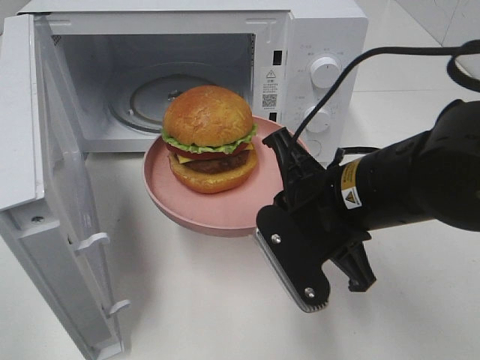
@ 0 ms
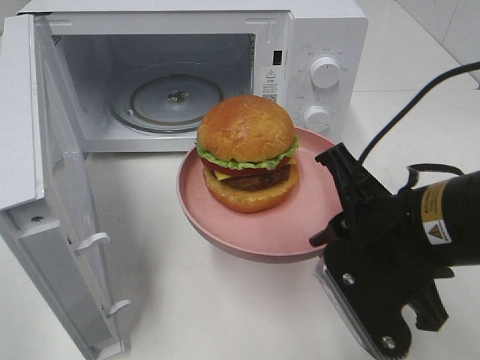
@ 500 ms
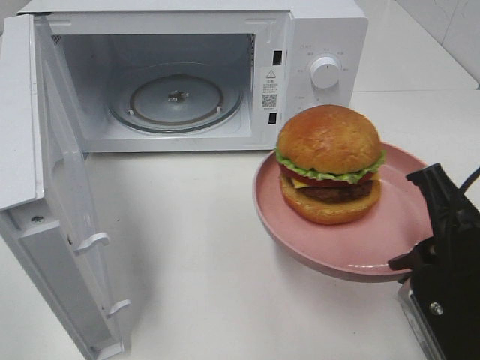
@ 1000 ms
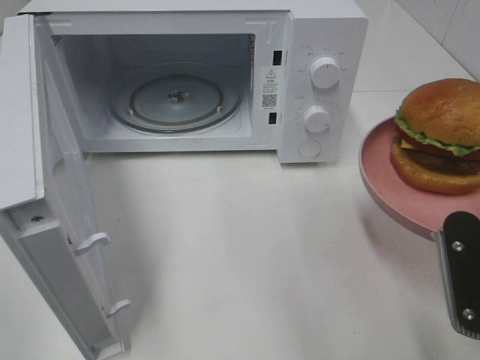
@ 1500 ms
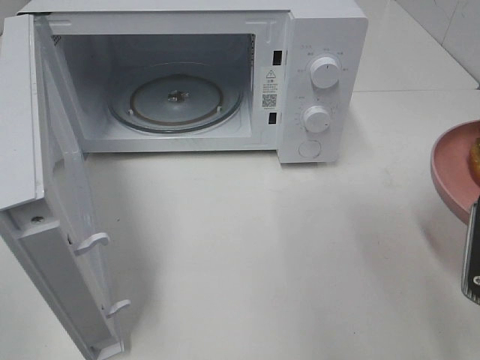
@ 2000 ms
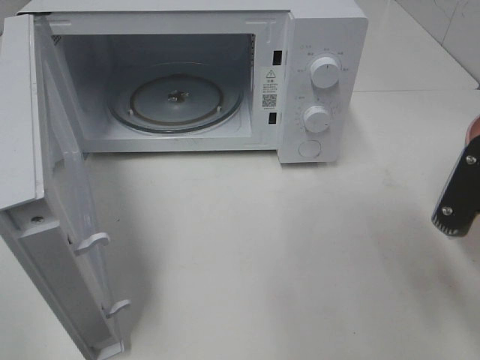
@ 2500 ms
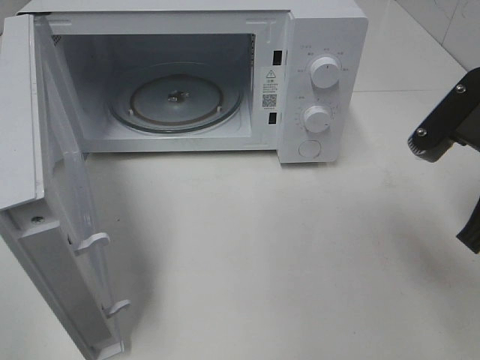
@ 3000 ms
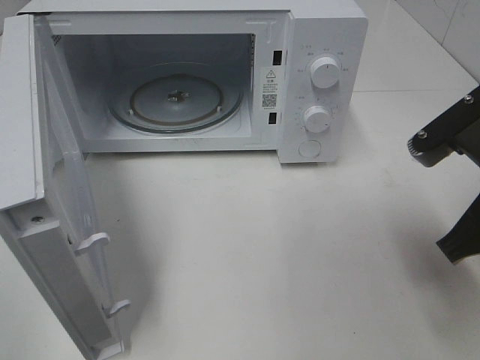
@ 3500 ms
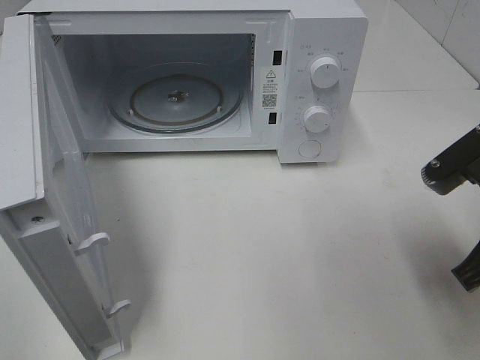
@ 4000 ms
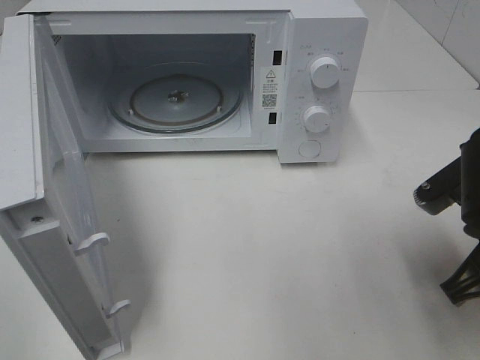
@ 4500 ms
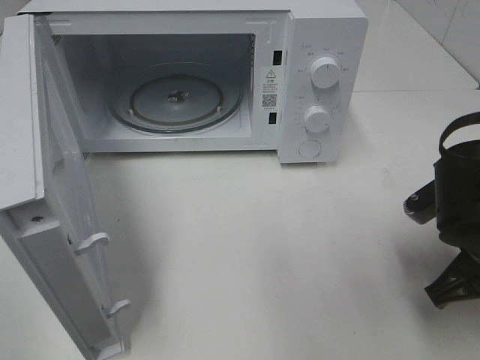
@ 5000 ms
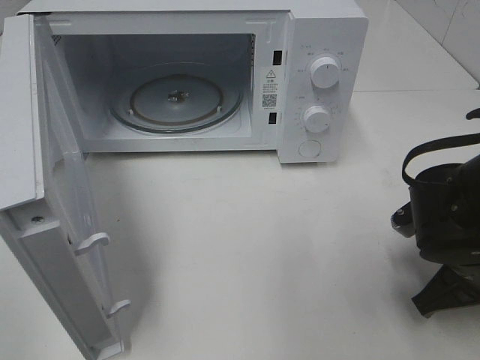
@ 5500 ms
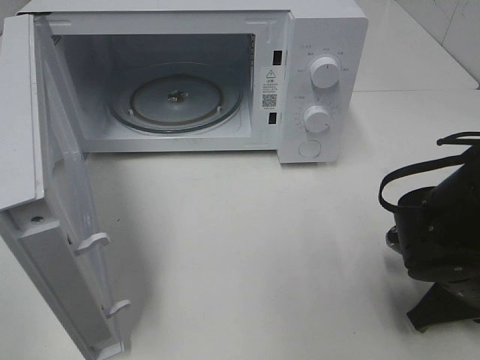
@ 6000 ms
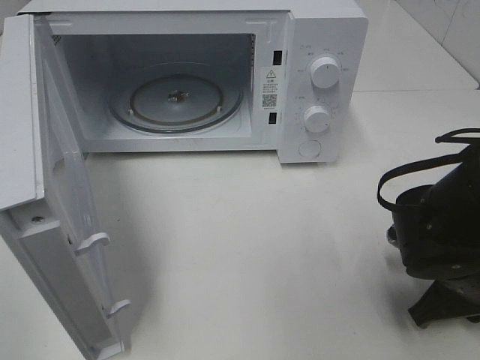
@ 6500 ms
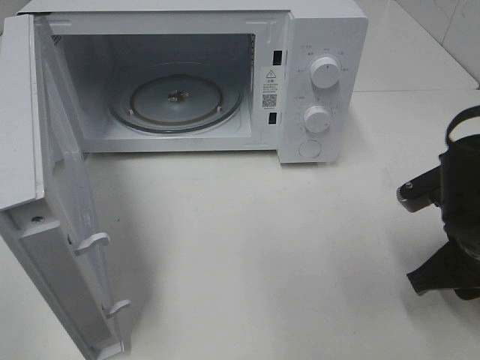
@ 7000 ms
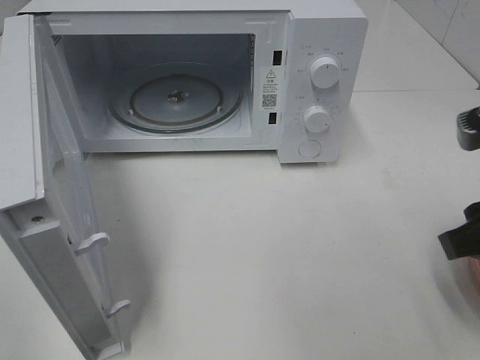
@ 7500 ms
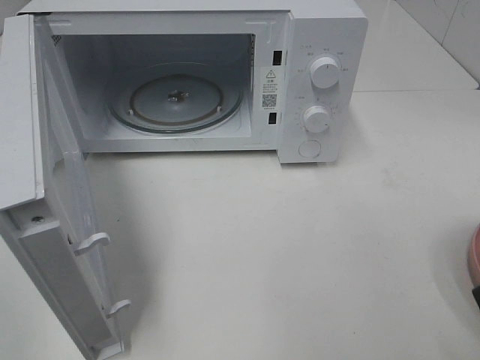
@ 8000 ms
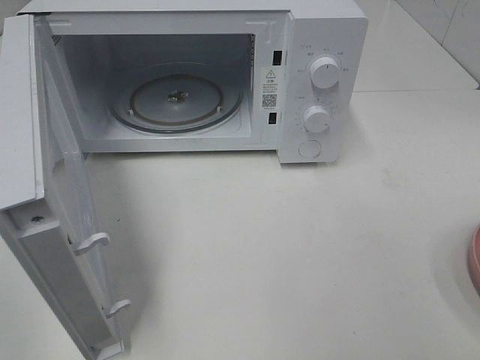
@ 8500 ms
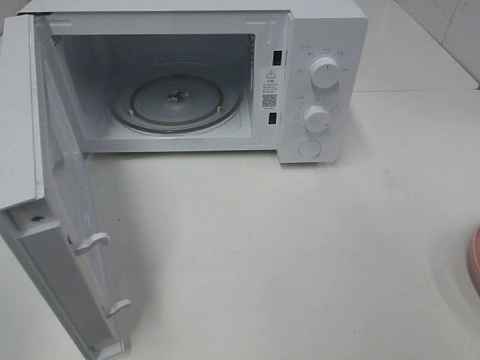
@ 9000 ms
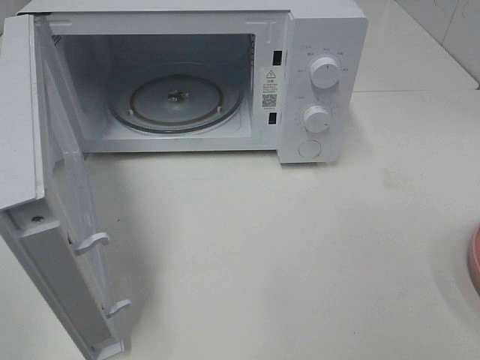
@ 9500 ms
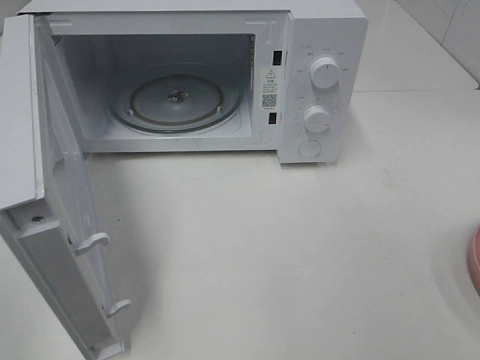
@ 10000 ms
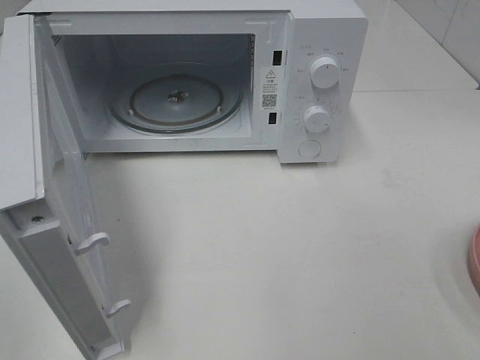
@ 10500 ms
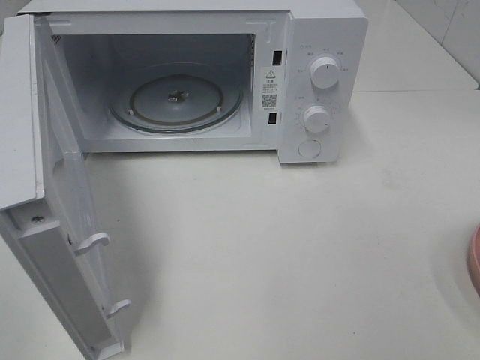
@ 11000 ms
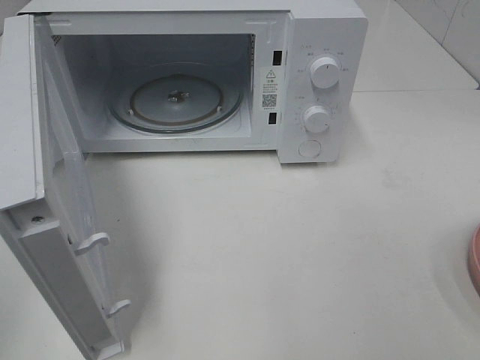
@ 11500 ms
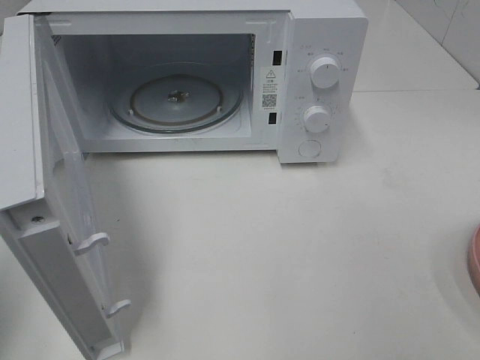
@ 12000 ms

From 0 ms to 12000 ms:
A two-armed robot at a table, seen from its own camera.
Task of the whole recording: Heat the burger.
Step, from 0 ms to 6500 ms: Right hand: place the plate on the table.
From 0 ms to 2000 ms: The right gripper heads to the right and backward, covering about 15 cm.
From 4000 ms to 6000 ms: The right gripper is displaced downward by roughly 10 cm.
From 6000 ms to 8000 ms: The right gripper shifts some 20 cm upward and backward, and opens up.

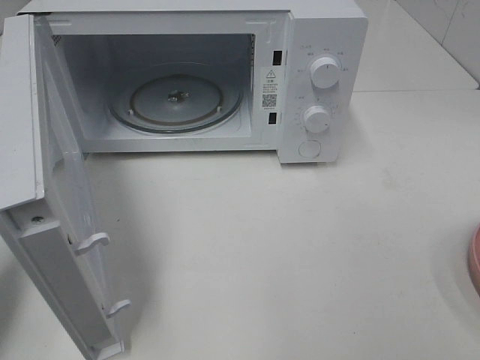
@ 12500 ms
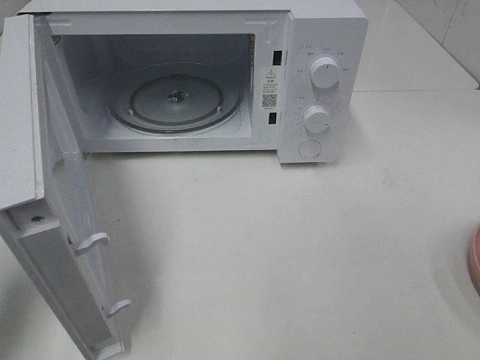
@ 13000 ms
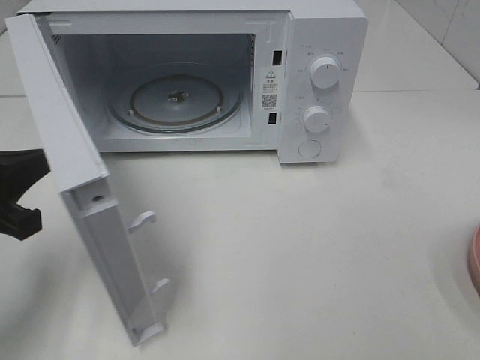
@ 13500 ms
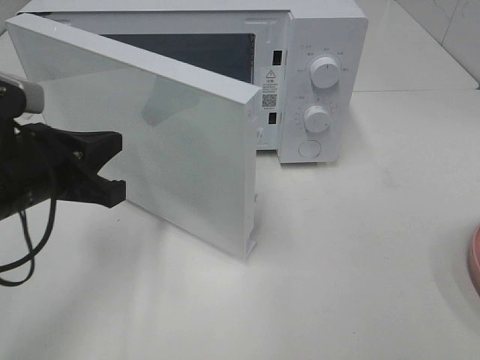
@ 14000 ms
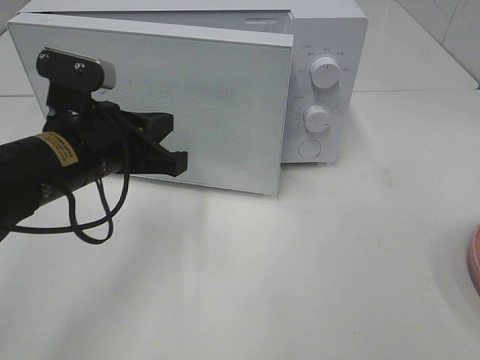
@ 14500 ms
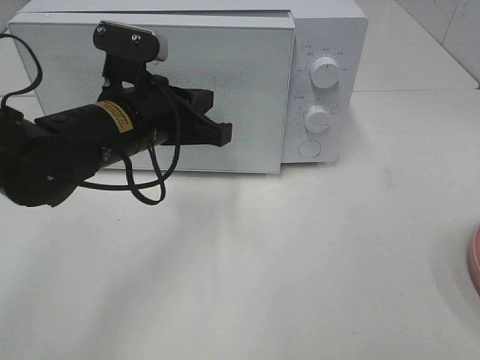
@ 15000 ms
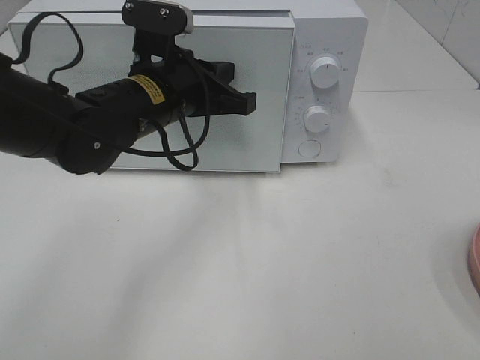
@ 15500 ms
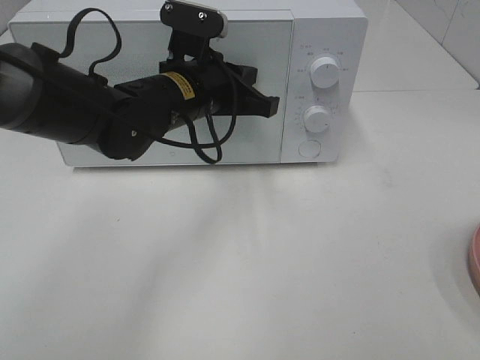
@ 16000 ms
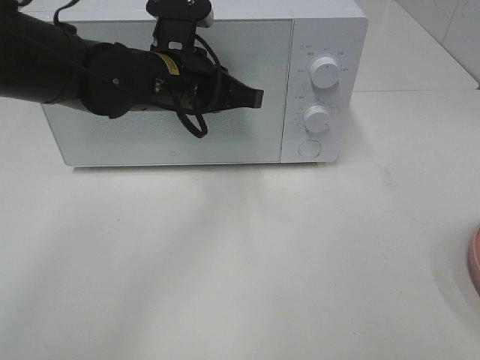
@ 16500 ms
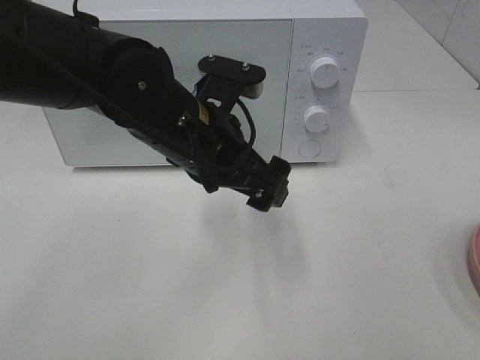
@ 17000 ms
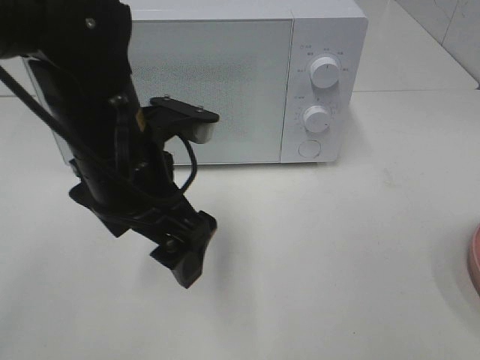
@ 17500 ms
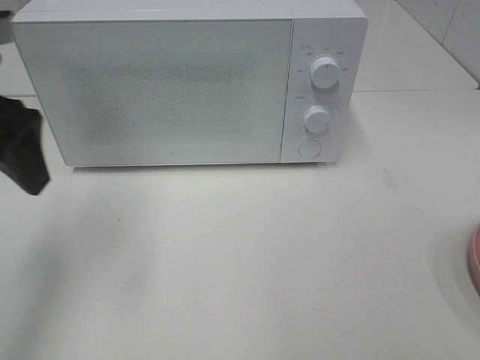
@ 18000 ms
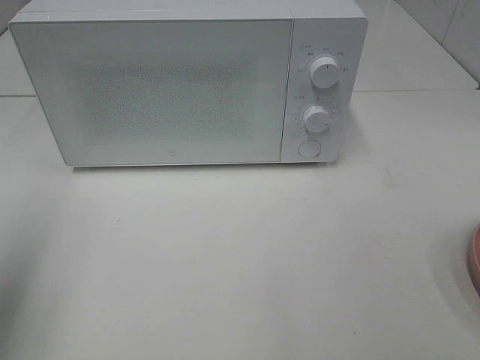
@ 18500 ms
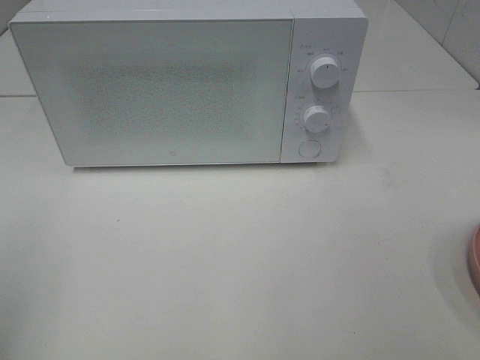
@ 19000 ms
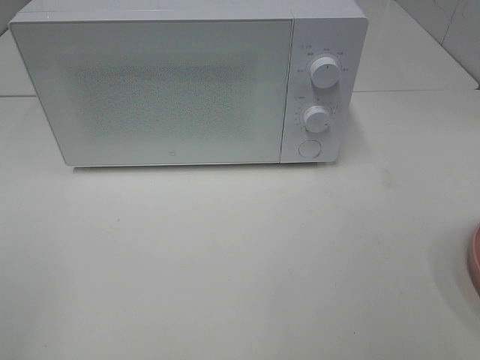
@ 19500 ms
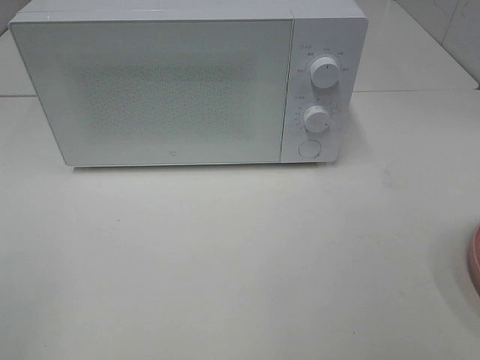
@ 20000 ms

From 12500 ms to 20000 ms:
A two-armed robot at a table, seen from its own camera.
Task of the whole recording: Heat the burger.
Step, from 12500 ms to 16500 ms: Left hand: close the microwave door.
From 12500 ms to 14500 ms: The left gripper shifts roughly 20 cm to the right and forward.
From 14500 ms to 16500 ms: The left gripper is displaced to the right and forward by approximately 10 cm.
From 16500 ms to 18000 ms: The left gripper goes approximately 25 cm to the left, upward and backward, and opens up.
From 18000 ms to 20000 ms: The left gripper travels backward by approximately 25 cm.

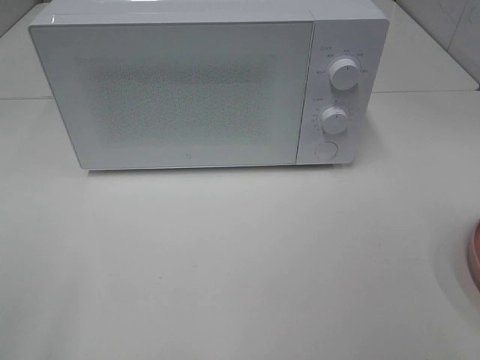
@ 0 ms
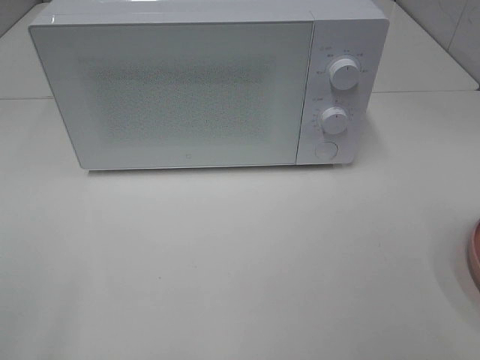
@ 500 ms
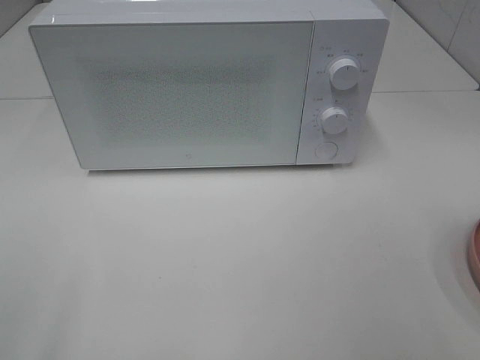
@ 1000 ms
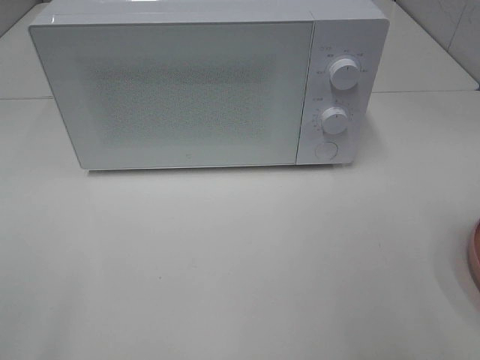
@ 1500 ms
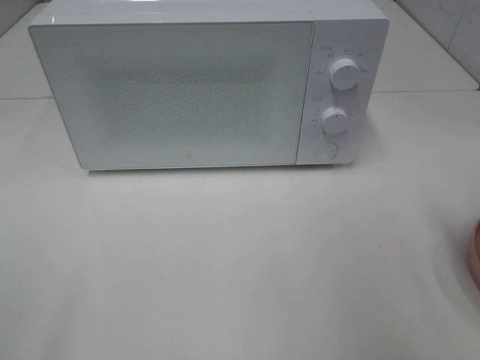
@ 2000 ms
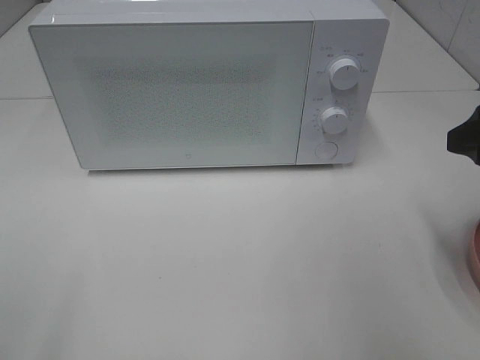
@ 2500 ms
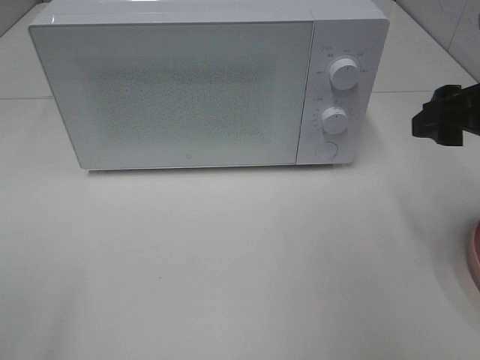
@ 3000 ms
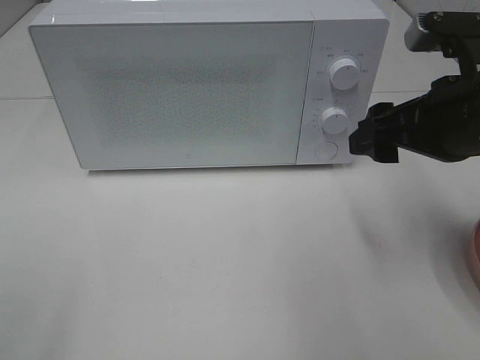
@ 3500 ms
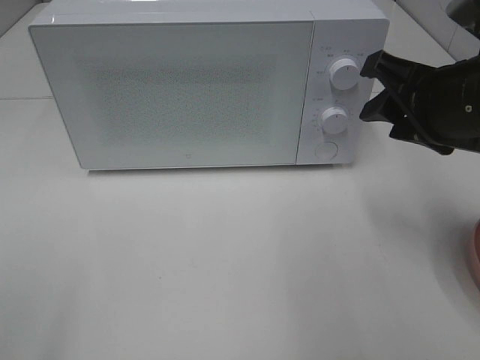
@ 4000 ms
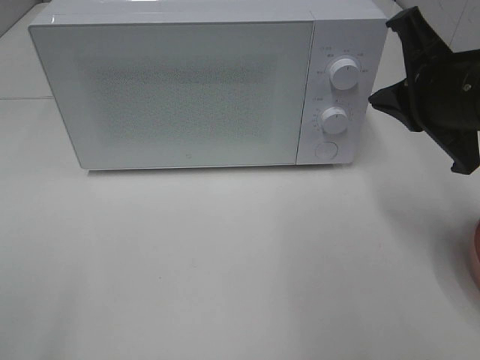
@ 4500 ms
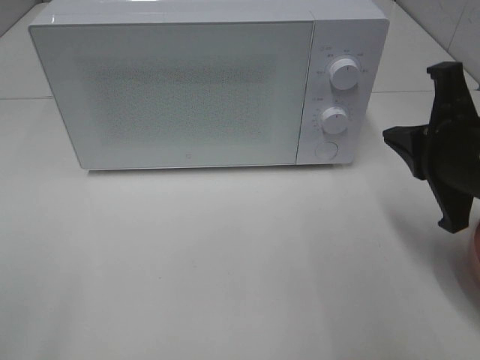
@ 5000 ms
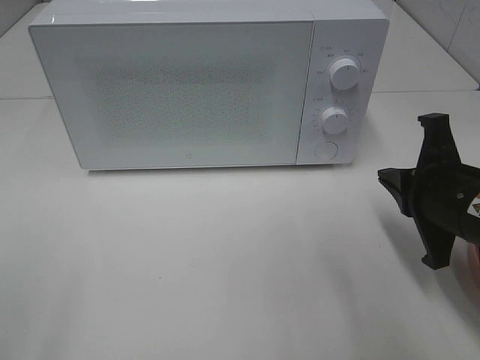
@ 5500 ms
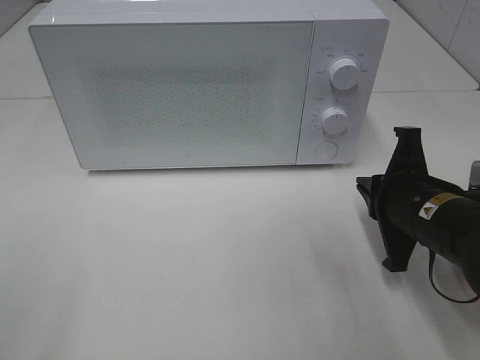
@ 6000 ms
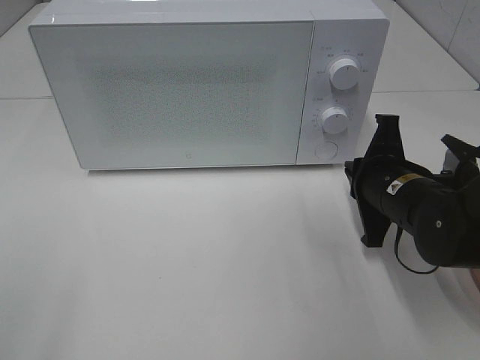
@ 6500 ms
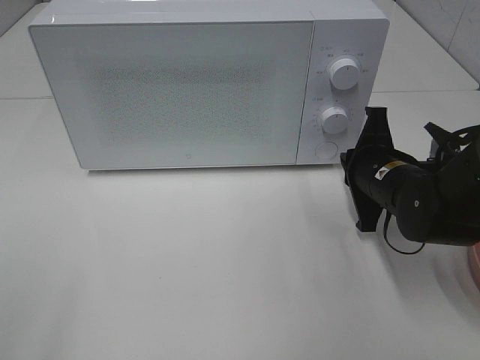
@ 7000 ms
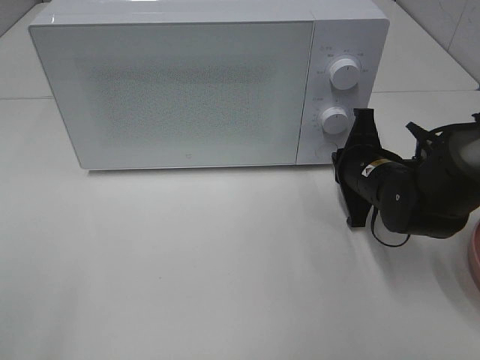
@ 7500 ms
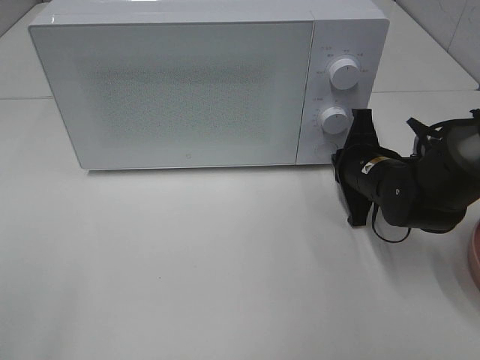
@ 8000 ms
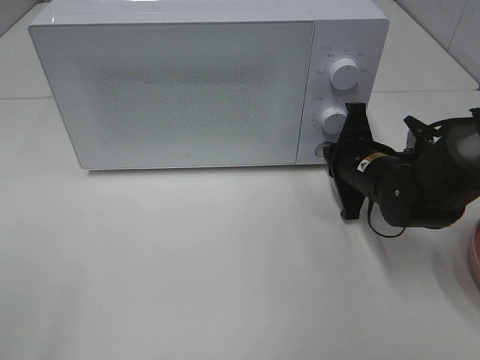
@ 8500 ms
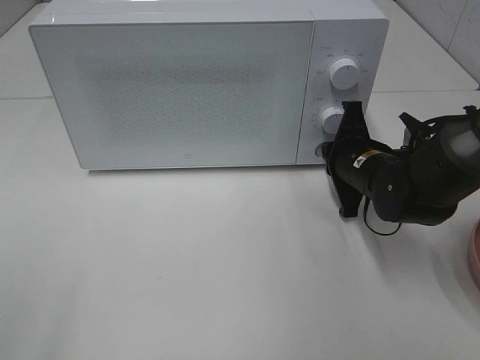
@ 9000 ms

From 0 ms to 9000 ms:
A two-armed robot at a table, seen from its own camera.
Task of the whole recording: Heat the burger.
From 2000 ms to 4500 ms: The right gripper travels forward and to the left by roughly 10 cm, and closes up.
From 4500 ms to 7000 ms: The right gripper moves downward, about 15 cm.
From 7000 ms to 9000 ms: The grippers make only small movements.
